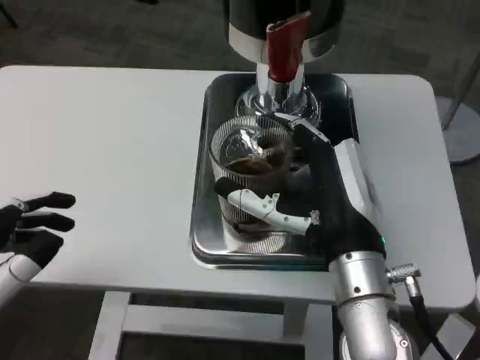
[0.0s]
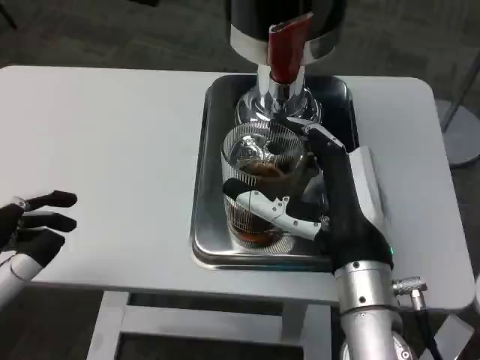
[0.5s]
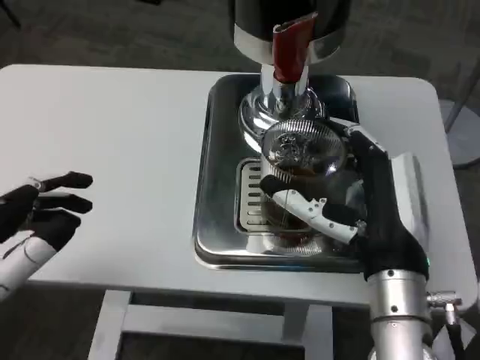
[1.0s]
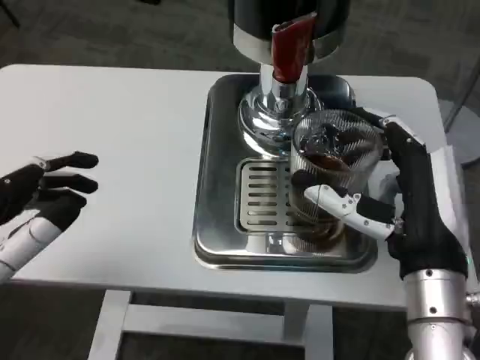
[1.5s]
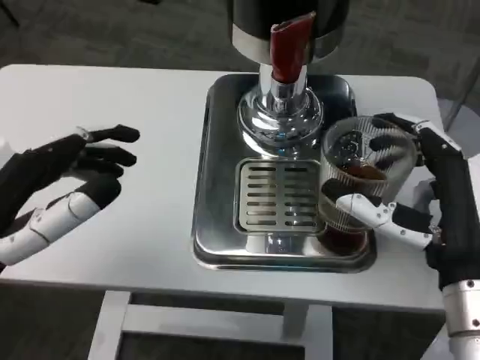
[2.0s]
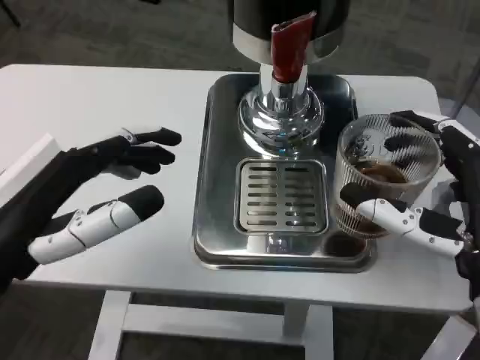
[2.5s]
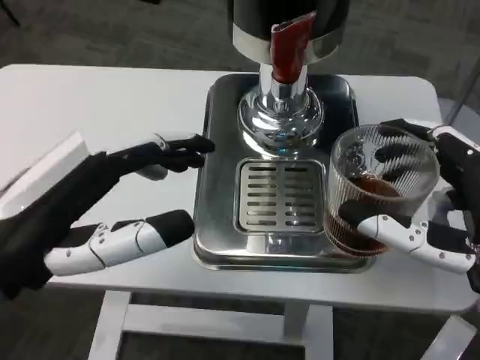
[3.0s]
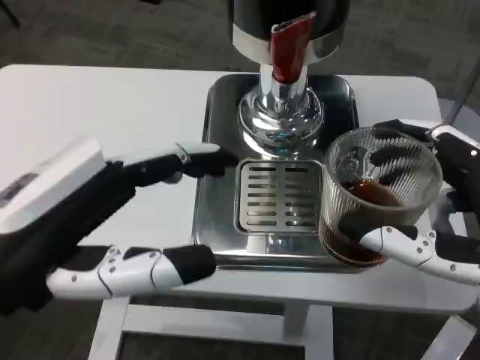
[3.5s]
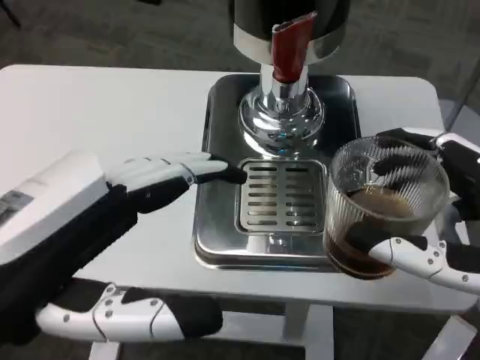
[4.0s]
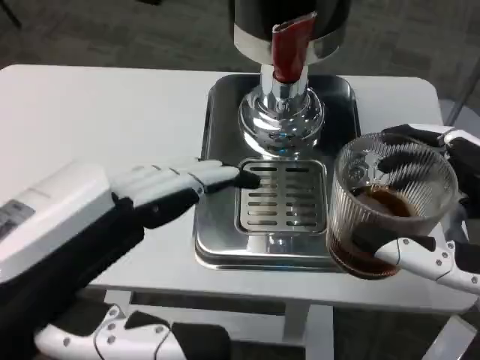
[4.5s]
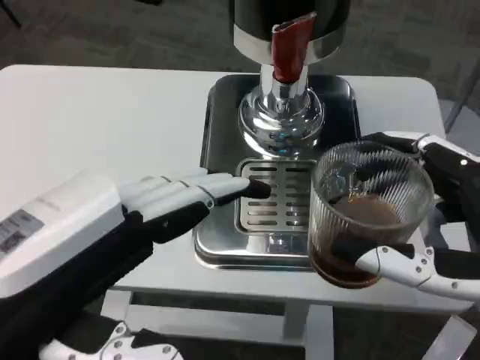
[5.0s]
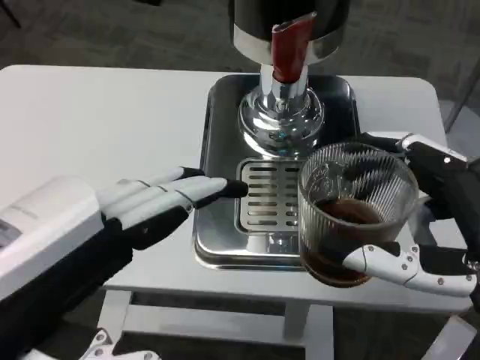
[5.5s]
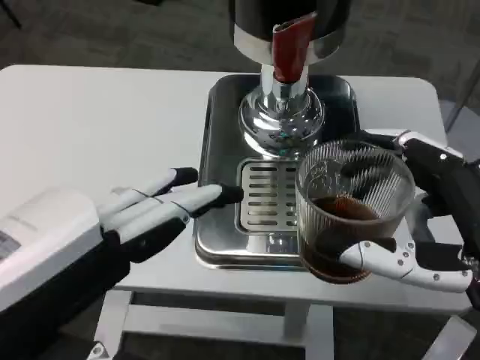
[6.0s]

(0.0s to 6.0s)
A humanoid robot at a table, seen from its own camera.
Task of the whole recording: Grasp the cup under the faucet to collect the drink, then remove the cup.
0.0s - 2.0s: The left hand ends up approximately 5 cm from where it was. Meanwhile the right hand is displaced to the right by approximately 10 cm.
2.0s - 4.0s: Both hands move backward, roughly 5 cm.

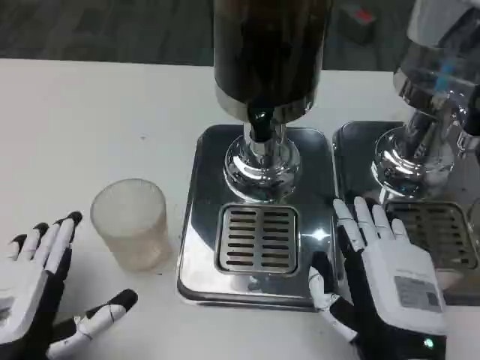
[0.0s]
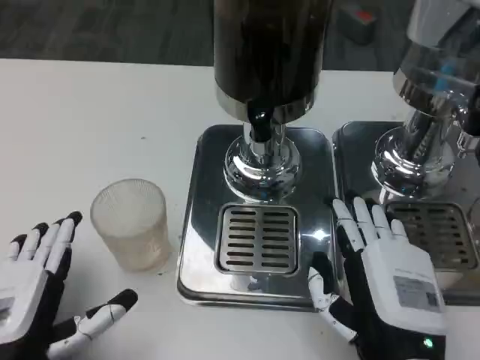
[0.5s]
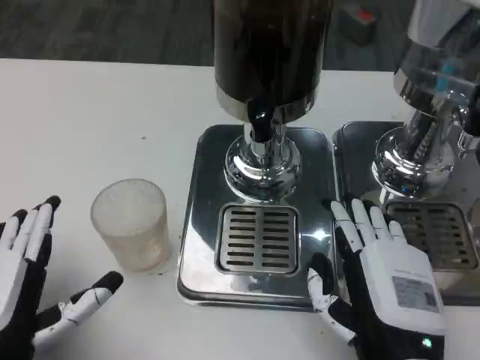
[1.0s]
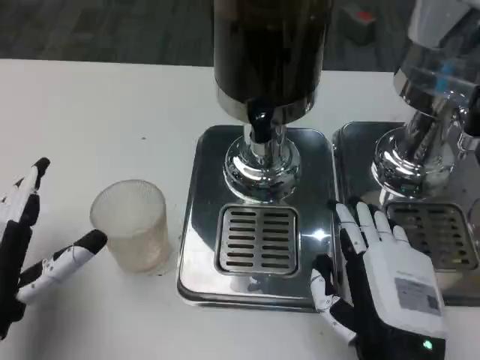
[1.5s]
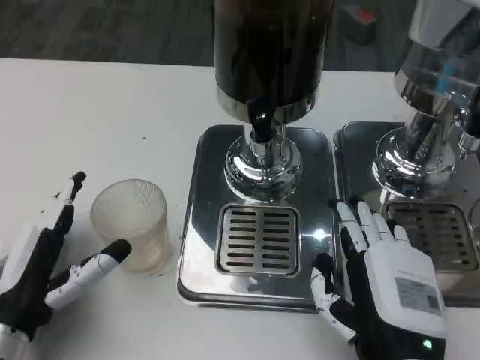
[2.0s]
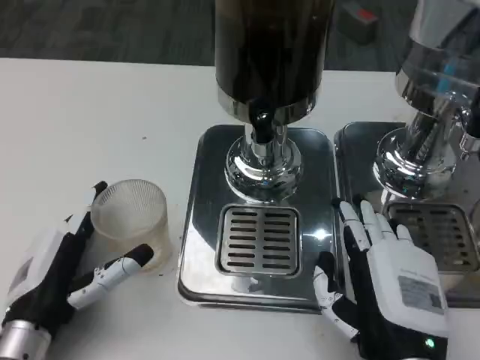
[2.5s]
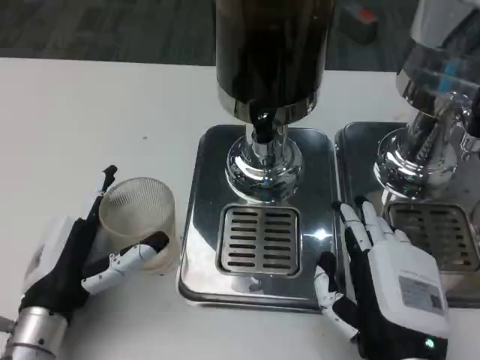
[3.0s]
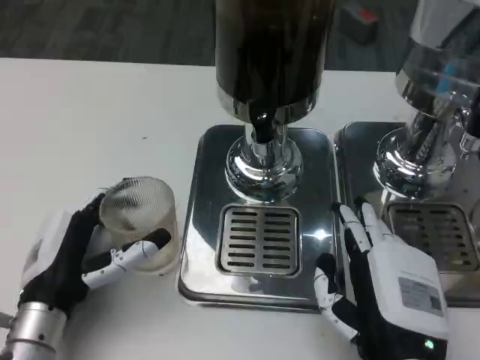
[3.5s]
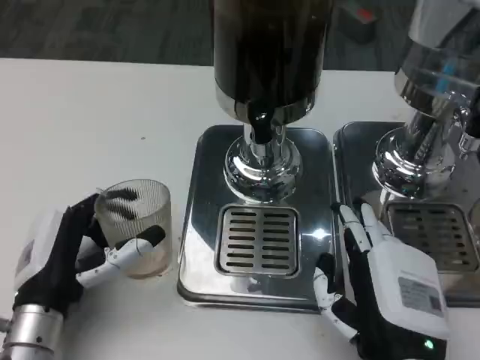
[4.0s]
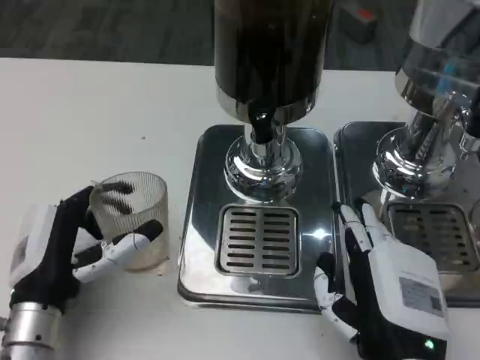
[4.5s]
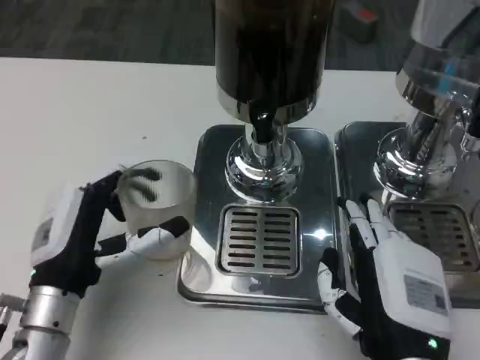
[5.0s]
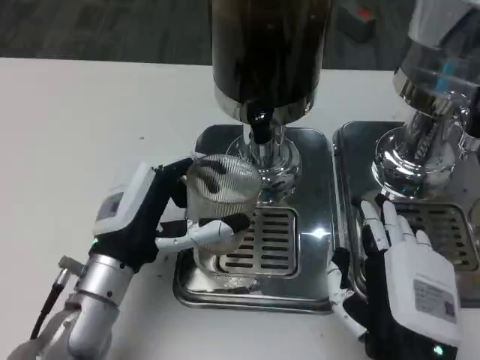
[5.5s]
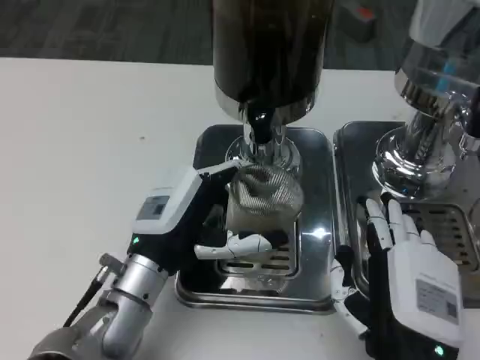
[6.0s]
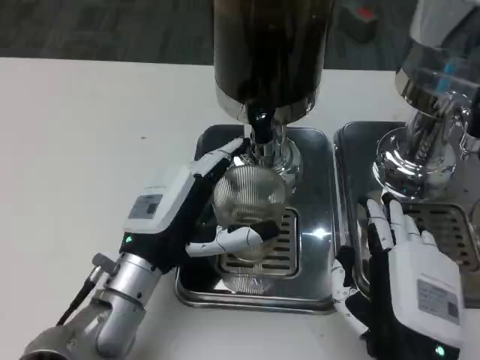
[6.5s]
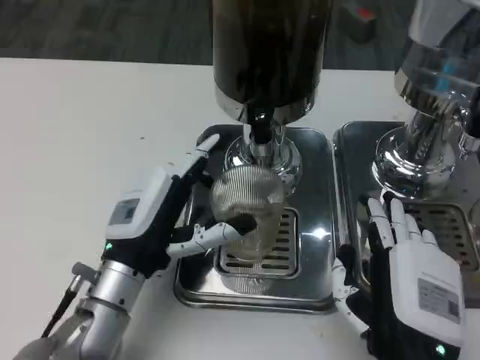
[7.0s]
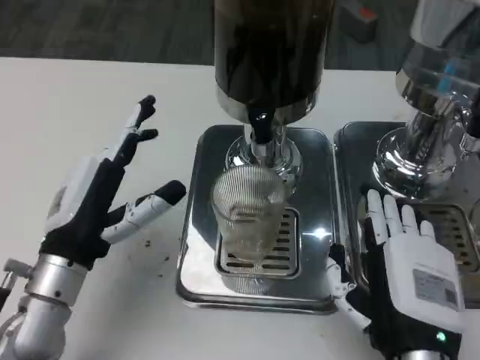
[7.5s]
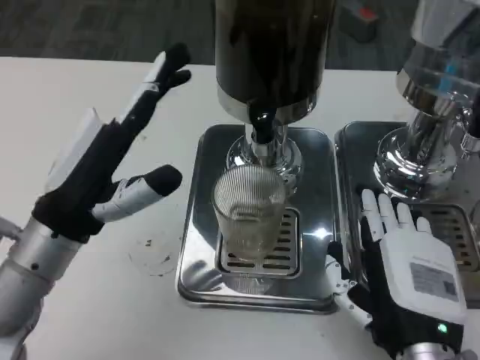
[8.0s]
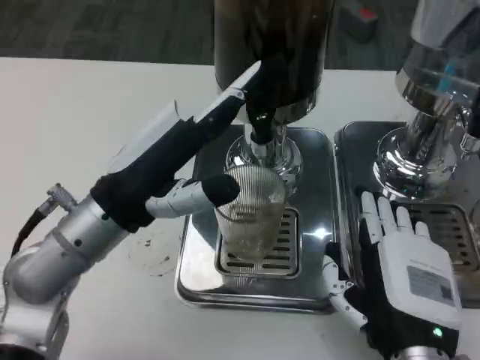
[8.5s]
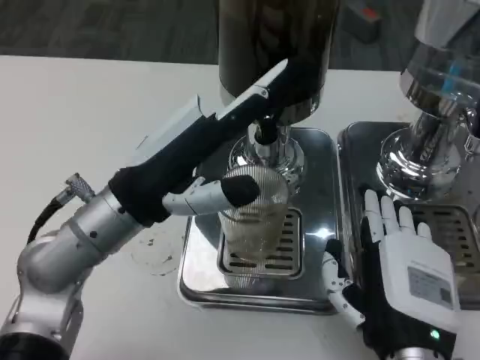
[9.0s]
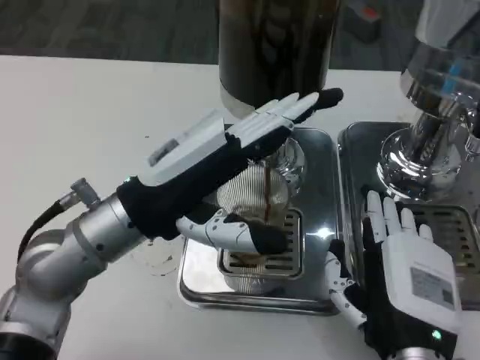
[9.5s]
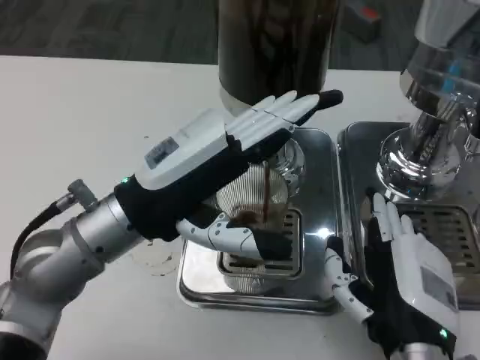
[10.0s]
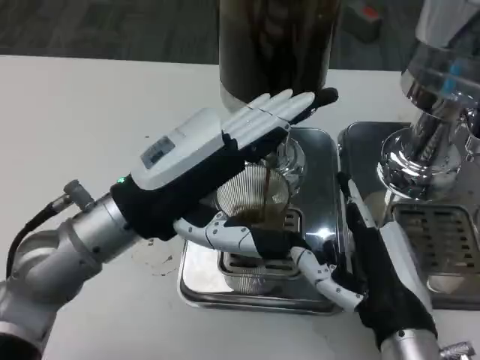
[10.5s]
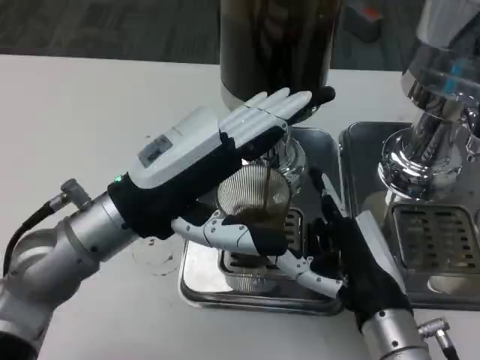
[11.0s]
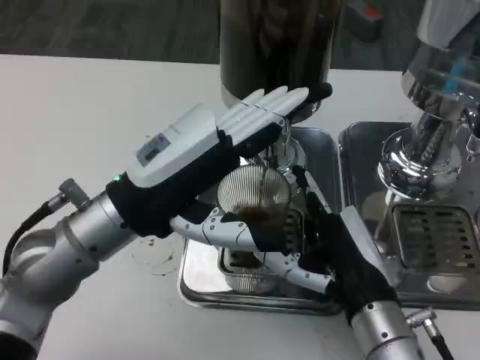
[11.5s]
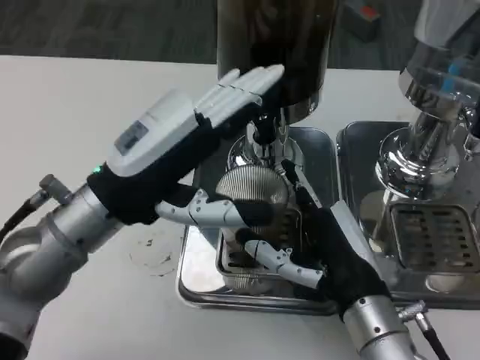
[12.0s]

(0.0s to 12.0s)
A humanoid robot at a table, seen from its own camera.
Task of the whole recording: Grasp the cup under the faucet to collect the drink, then remove the cup.
0.0s - 2.0s: The left hand is displaced forward by some 5 cm.
2.0s - 4.0s: The hands stay close to where they were, moving slightly.
4.0s - 6.0s: The left hand travels to the right and forward by roughly 10 cm.
6.0s - 8.0s: The left hand travels upward and to the left by approximately 10 cm.
8.0s - 10.0s: The left hand ends up approximately 5 cm from where it was.
10.0s - 12.0s: The right hand shifts by roughly 5 cm.

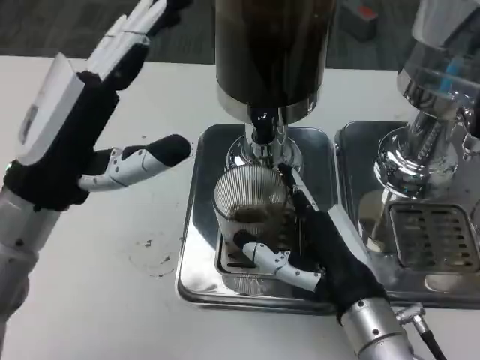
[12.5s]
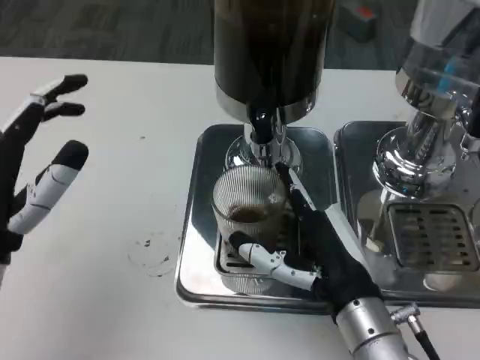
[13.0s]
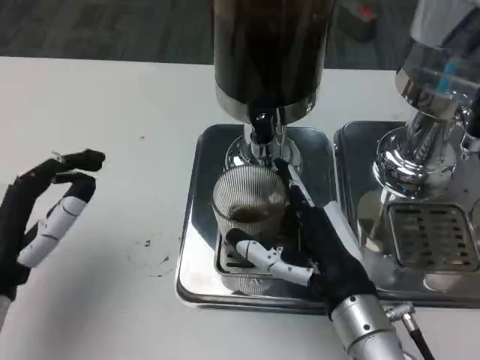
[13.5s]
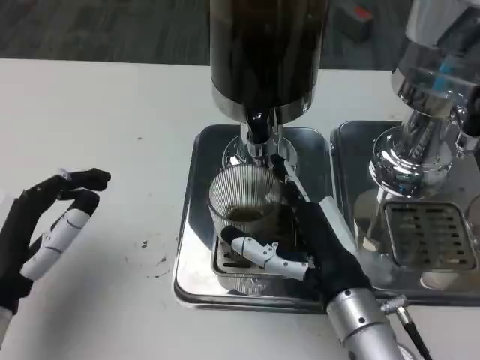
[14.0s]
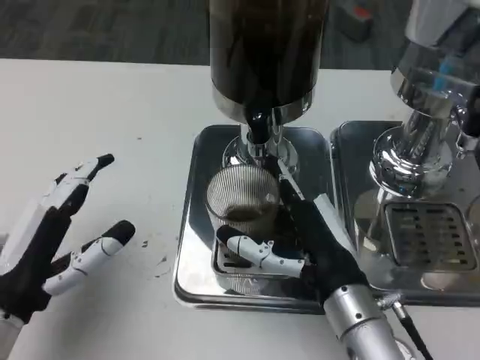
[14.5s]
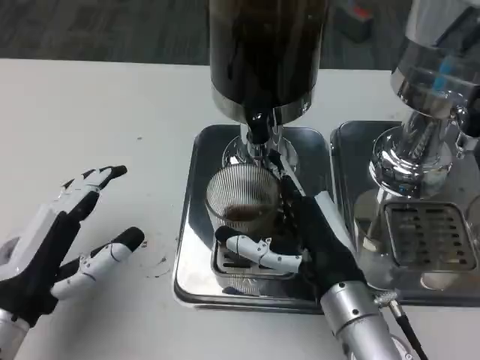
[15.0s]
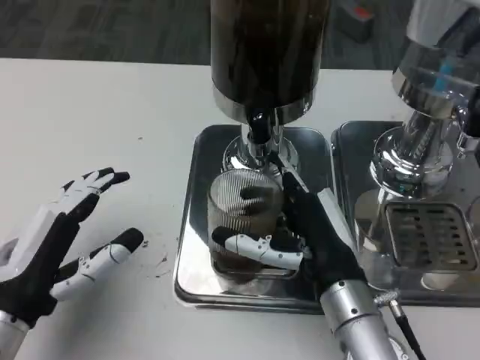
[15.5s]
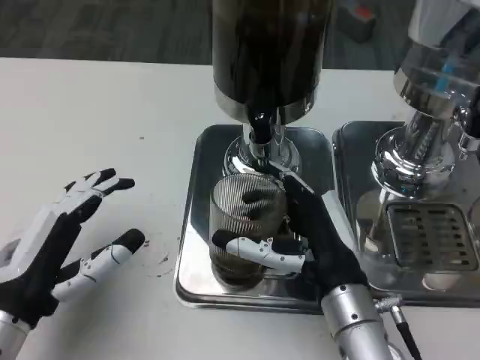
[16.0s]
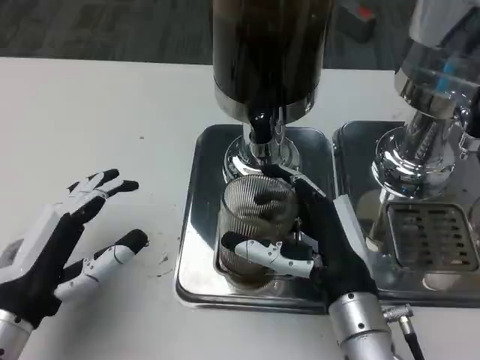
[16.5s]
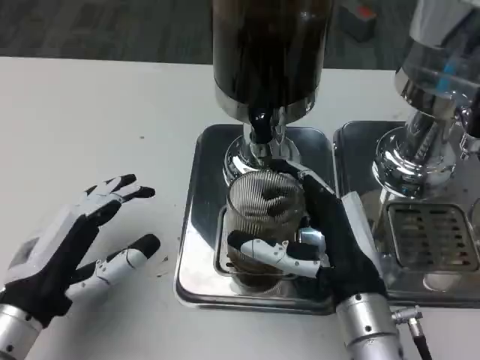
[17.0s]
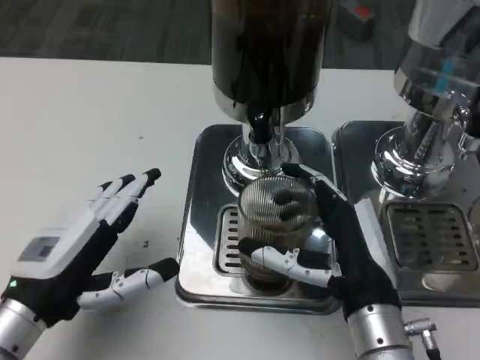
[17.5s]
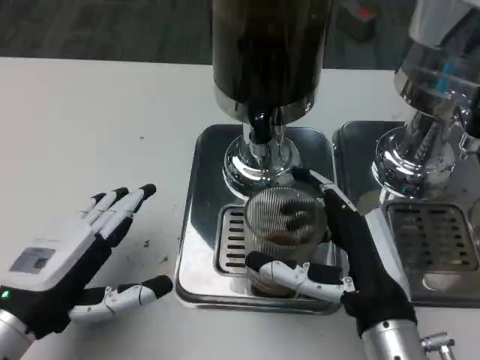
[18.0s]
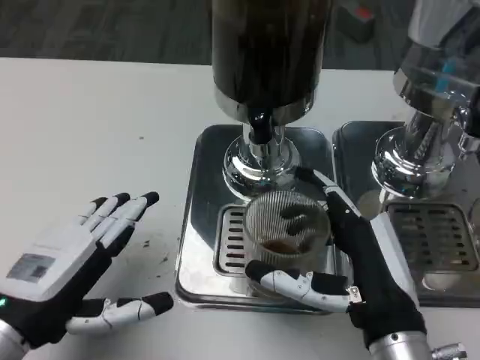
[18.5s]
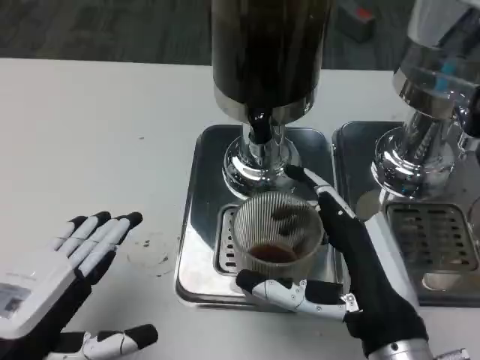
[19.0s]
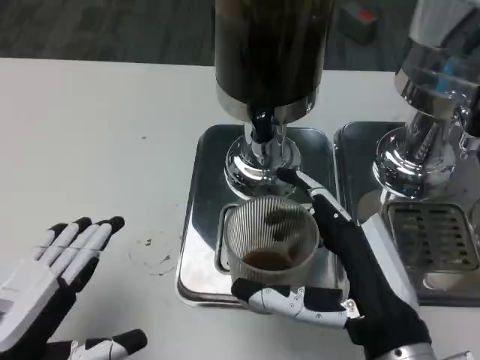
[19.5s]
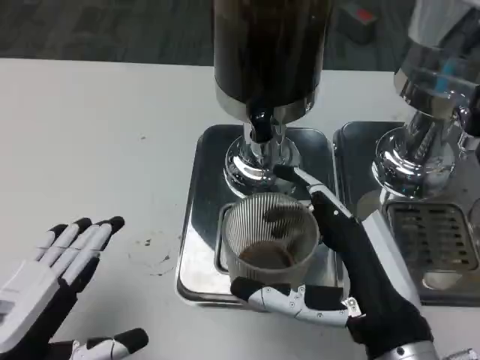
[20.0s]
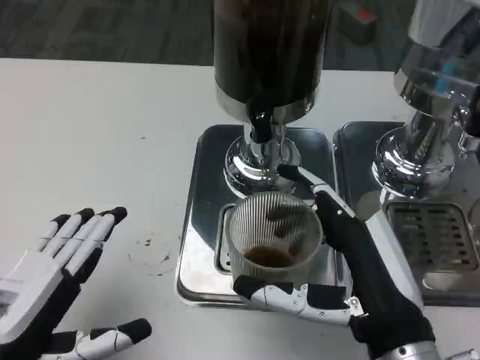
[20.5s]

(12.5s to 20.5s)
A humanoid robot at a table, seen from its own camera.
Task of the whole recording: Grasp the cup under the faucet to collect the drink, then remove the cup.
12.5s - 14.5s: The left hand travels downward and backward by about 10 cm.
14.5s - 16.5s: There are only small adjustments of the hands.
16.5s - 18.5s: The right hand moves about 5 cm.
